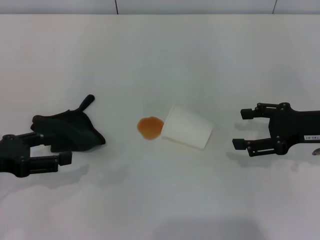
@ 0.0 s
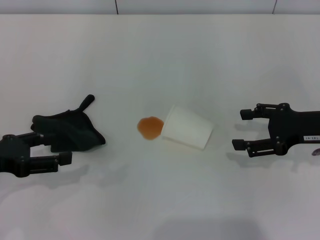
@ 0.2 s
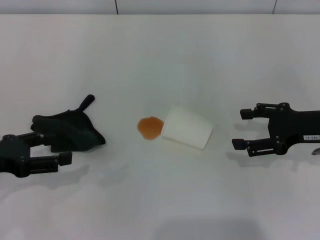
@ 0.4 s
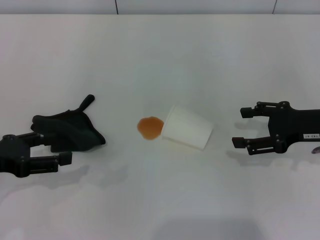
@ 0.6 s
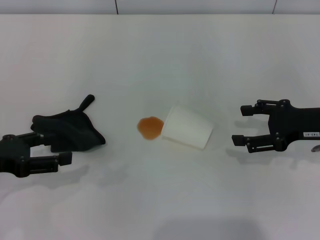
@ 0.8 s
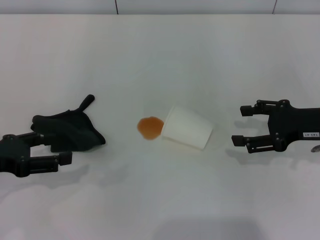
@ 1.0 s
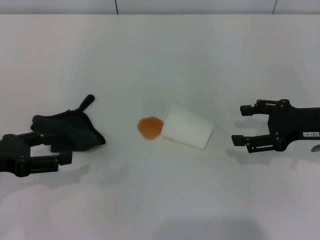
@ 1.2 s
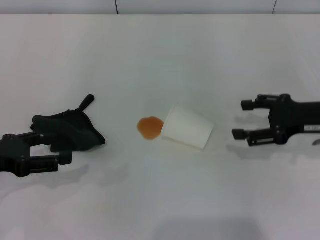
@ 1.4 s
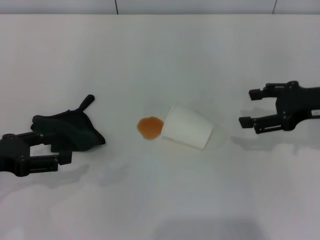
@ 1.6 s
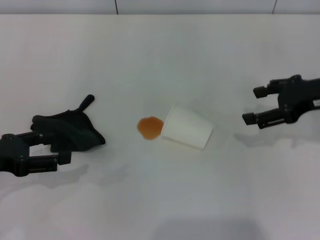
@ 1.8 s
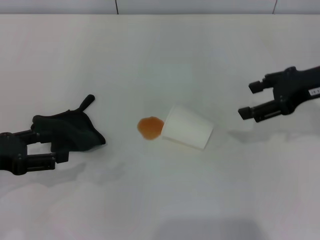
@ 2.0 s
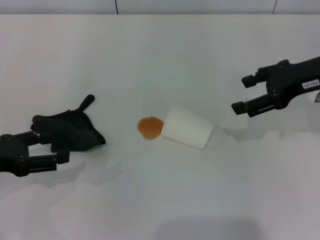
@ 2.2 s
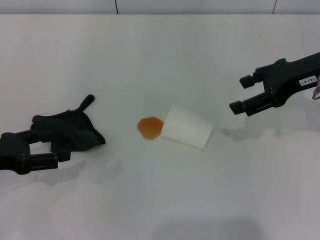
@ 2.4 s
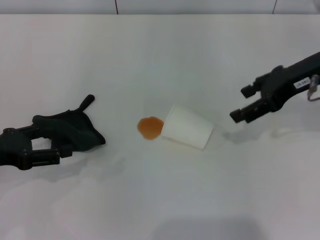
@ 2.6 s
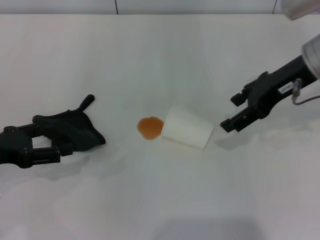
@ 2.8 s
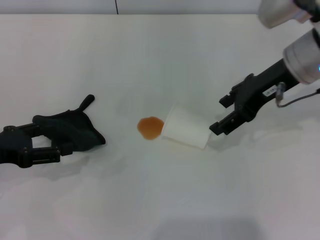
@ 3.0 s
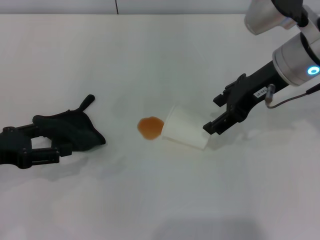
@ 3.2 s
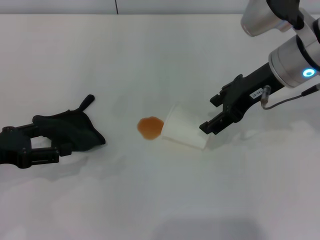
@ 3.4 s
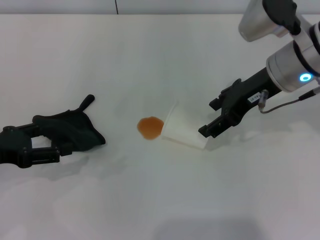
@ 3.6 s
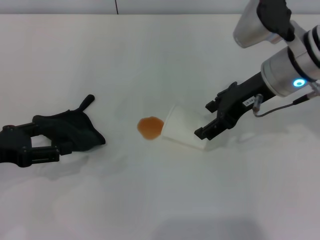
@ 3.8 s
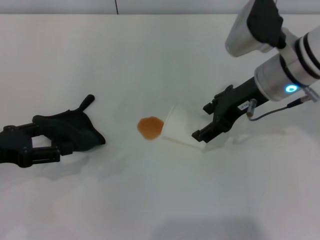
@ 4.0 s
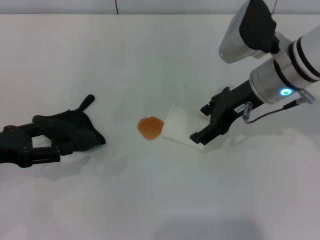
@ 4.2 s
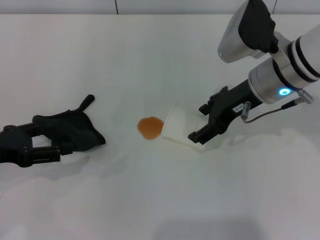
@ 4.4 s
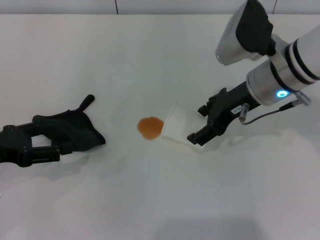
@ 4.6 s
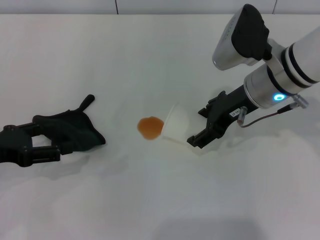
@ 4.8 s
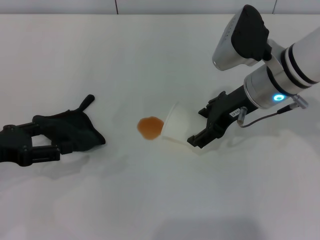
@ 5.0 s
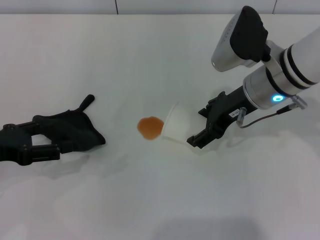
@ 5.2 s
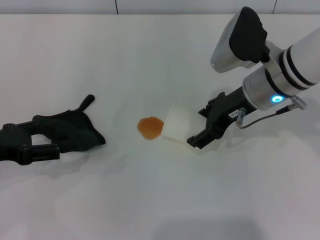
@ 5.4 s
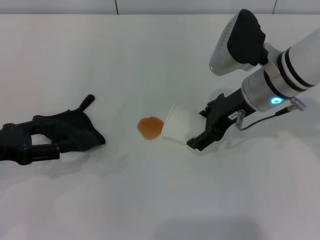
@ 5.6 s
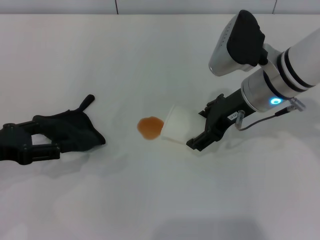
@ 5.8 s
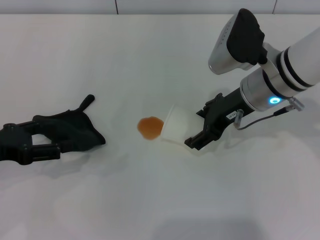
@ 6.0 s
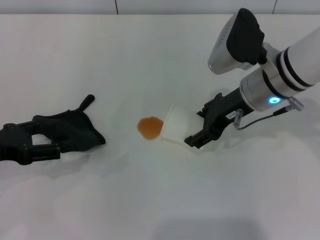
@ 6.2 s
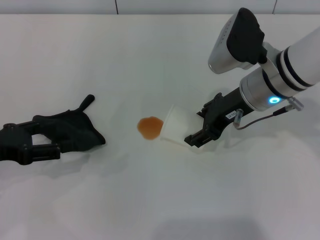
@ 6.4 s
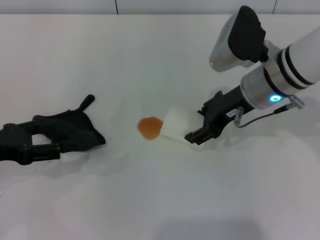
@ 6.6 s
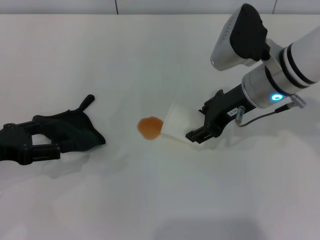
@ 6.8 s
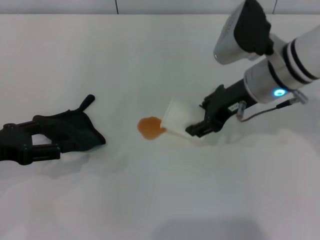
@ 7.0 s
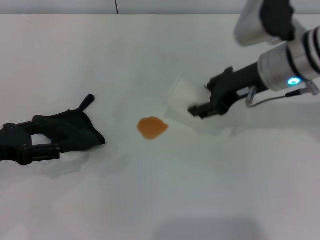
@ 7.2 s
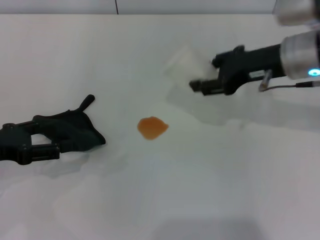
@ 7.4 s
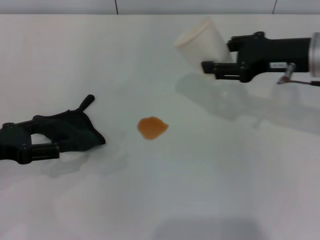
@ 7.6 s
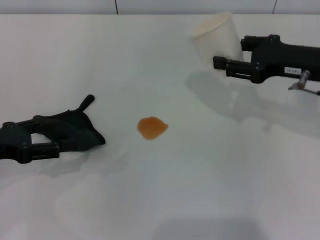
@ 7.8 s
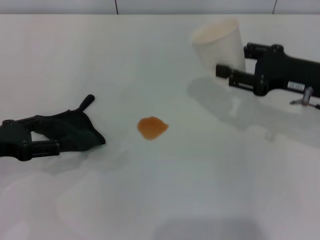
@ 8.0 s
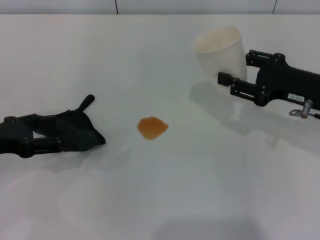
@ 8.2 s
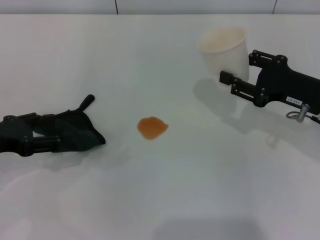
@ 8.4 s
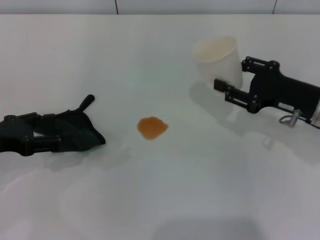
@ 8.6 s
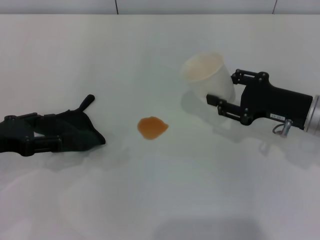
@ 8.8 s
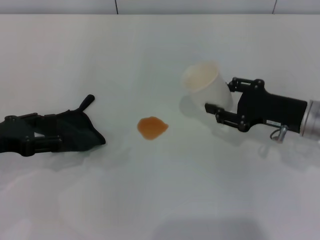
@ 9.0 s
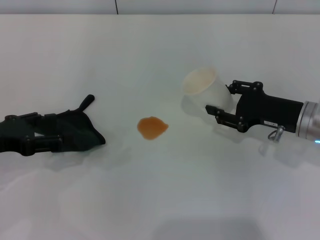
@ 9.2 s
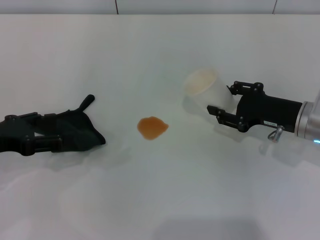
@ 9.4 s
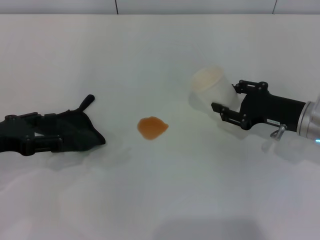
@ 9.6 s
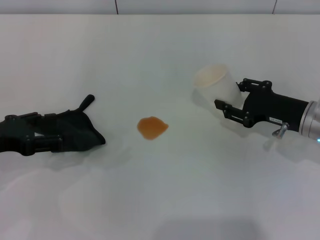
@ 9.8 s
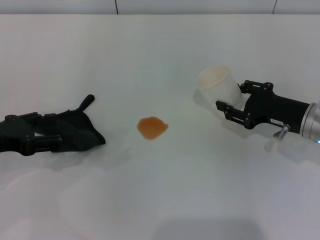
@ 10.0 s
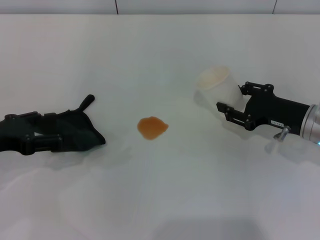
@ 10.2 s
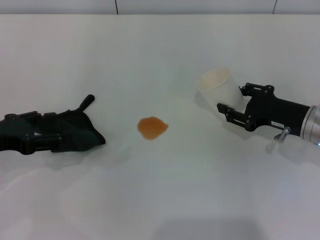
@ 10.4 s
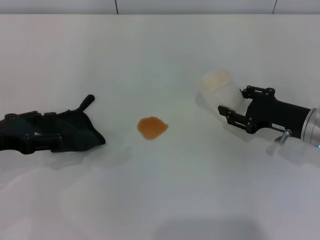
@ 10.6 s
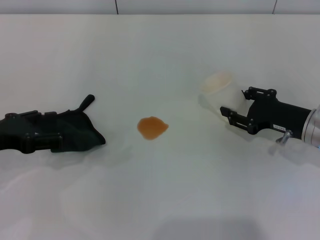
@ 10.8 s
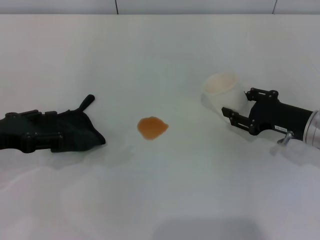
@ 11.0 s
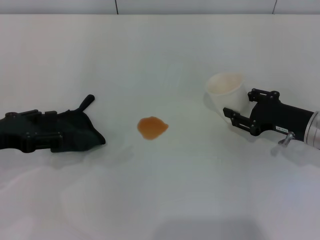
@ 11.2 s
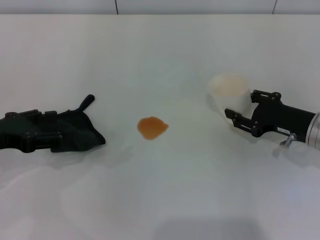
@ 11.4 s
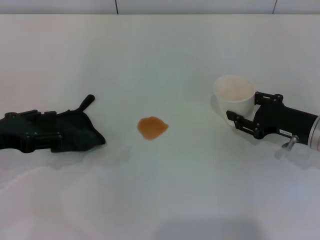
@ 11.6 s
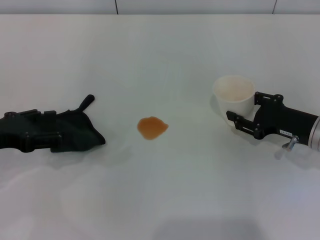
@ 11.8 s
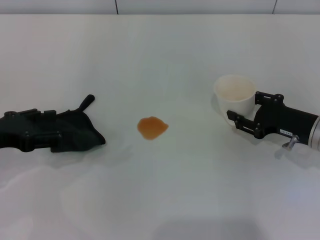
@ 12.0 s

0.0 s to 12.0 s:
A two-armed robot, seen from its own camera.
Step, 0.0 to 6.4 s: Grasp the paper cup with the right gripper.
0.0 to 1.6 s: There are only small adjustments of the grippers.
1.6 to 3.0 s: The right gripper goes approximately 10 cm to the left and upward.
3.0 to 4.4 s: The right gripper shifts by about 5 cm.
4.4 to 6.0 s: The grippers stay close to where they were, moving slightly.
6.0 to 7.6 s: The right gripper travels to the right by roughly 10 cm, and closes up.
7.6 to 9.0 s: The right gripper is displaced downward by roughly 10 cm.
9.0 to 12.0 s: The grippers move only a little.

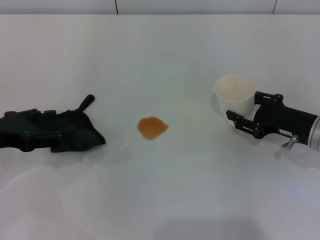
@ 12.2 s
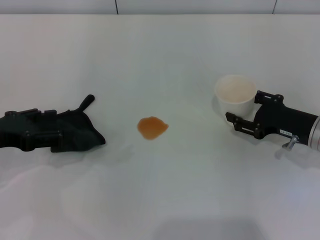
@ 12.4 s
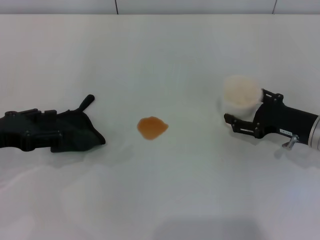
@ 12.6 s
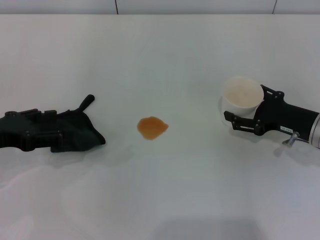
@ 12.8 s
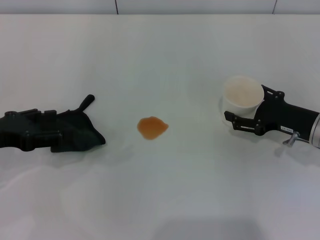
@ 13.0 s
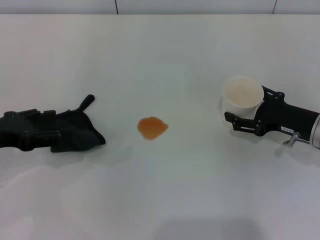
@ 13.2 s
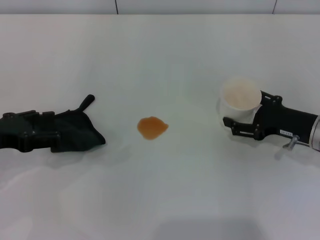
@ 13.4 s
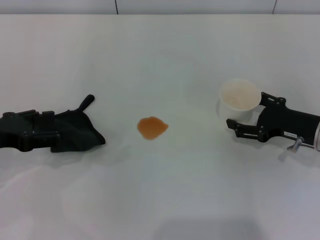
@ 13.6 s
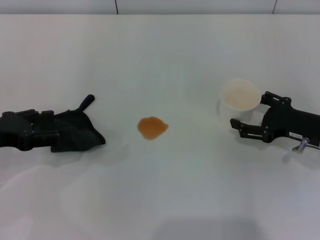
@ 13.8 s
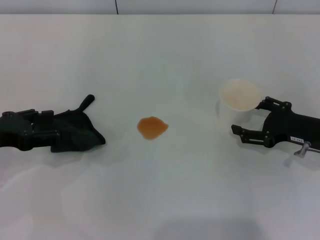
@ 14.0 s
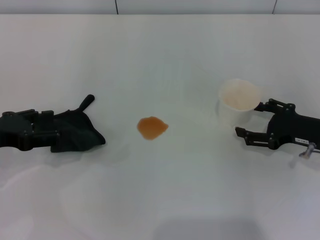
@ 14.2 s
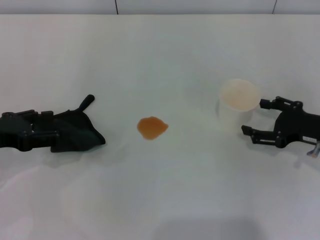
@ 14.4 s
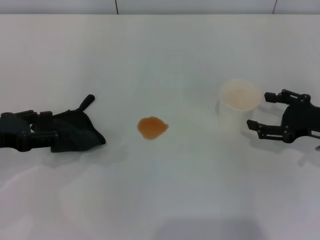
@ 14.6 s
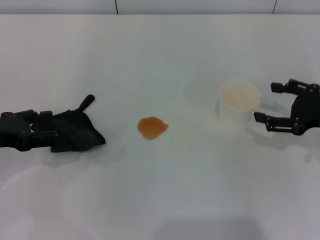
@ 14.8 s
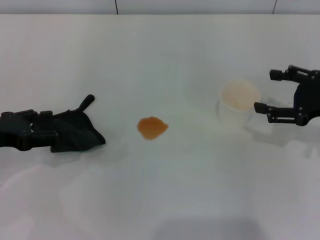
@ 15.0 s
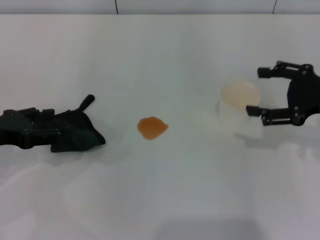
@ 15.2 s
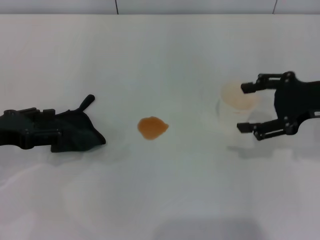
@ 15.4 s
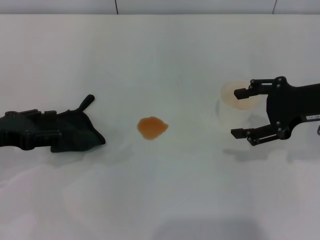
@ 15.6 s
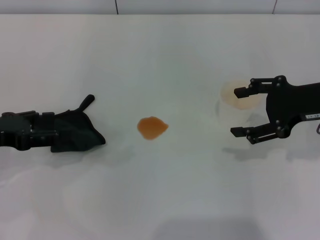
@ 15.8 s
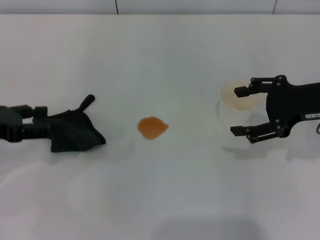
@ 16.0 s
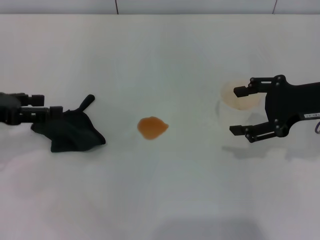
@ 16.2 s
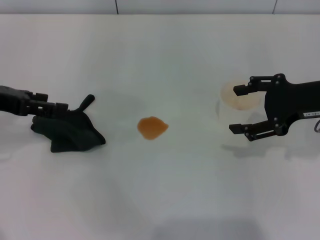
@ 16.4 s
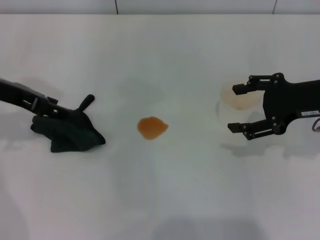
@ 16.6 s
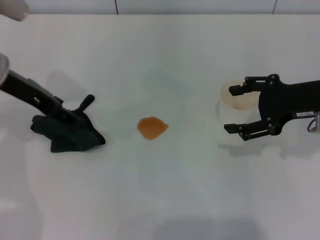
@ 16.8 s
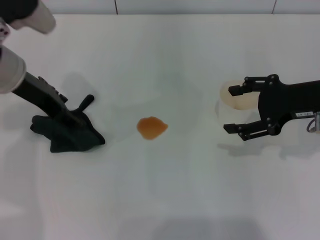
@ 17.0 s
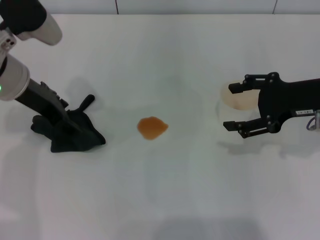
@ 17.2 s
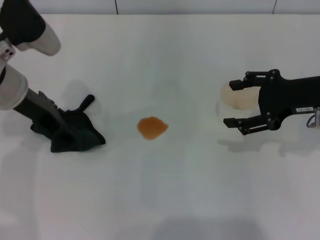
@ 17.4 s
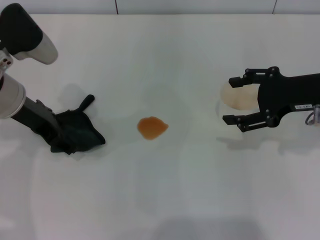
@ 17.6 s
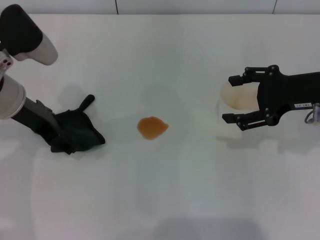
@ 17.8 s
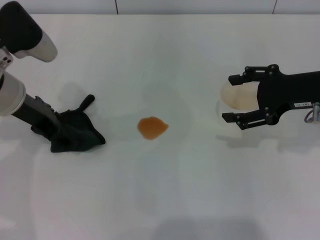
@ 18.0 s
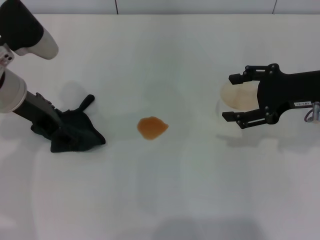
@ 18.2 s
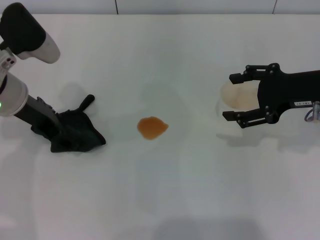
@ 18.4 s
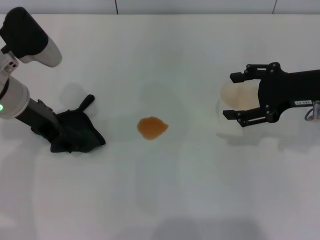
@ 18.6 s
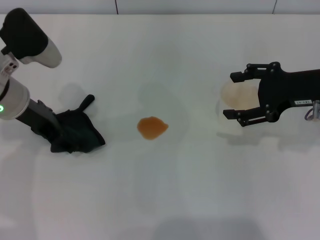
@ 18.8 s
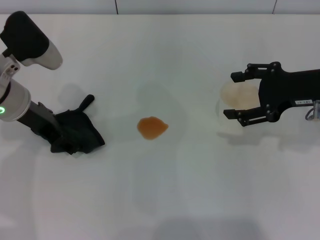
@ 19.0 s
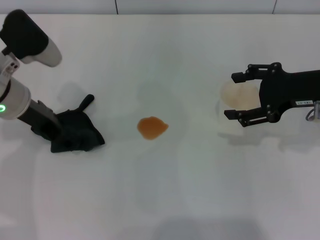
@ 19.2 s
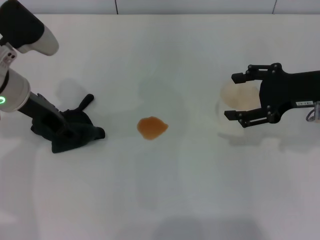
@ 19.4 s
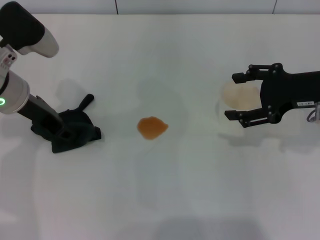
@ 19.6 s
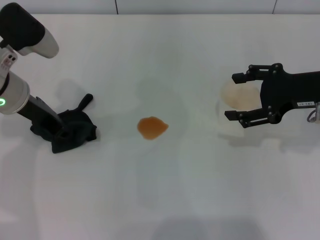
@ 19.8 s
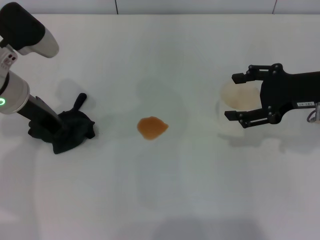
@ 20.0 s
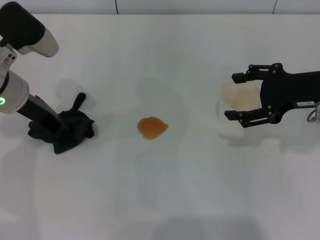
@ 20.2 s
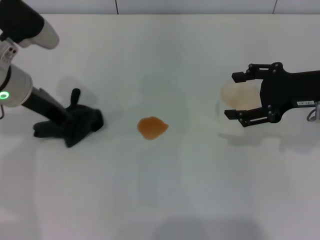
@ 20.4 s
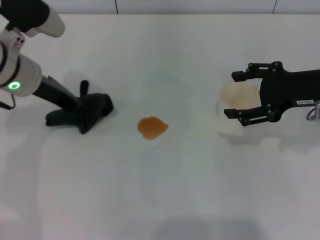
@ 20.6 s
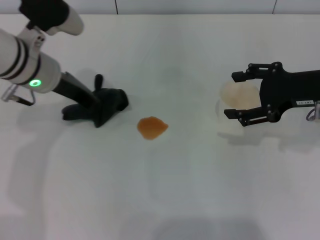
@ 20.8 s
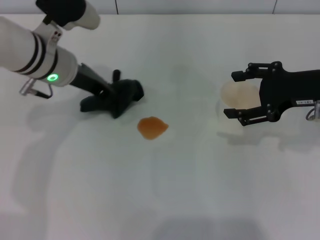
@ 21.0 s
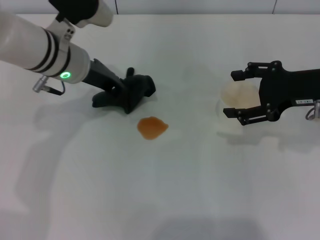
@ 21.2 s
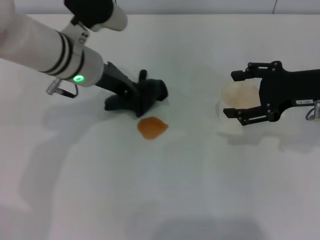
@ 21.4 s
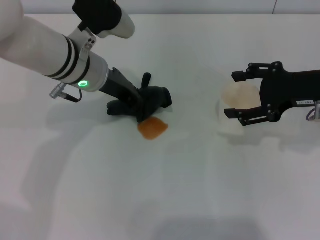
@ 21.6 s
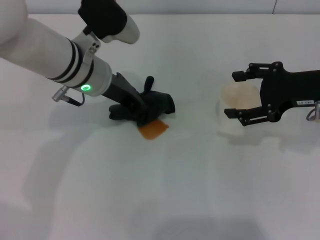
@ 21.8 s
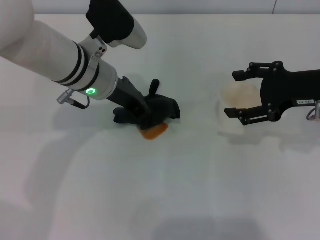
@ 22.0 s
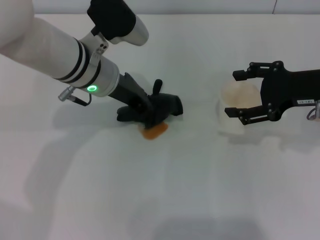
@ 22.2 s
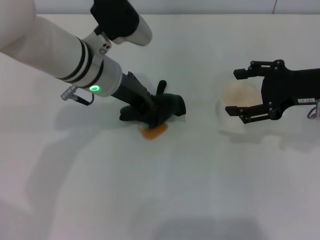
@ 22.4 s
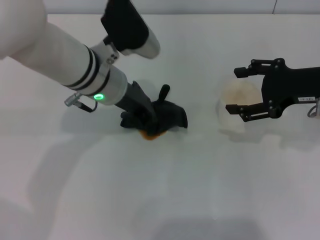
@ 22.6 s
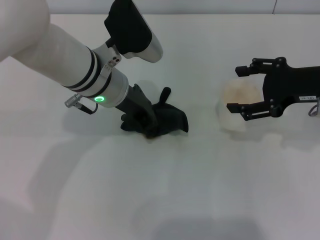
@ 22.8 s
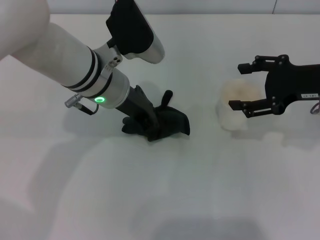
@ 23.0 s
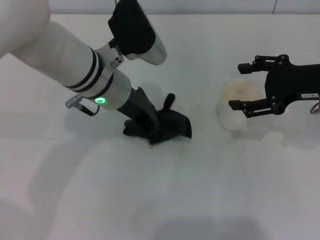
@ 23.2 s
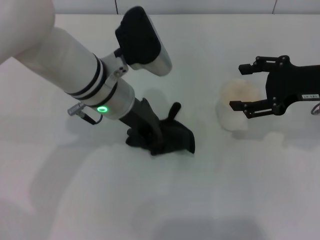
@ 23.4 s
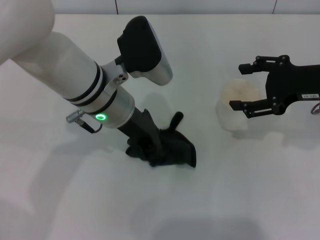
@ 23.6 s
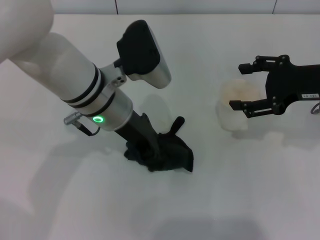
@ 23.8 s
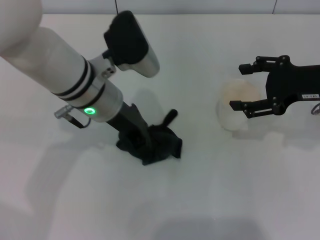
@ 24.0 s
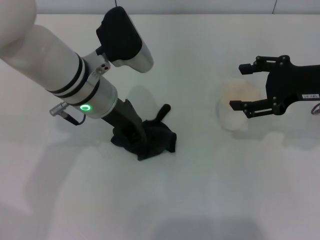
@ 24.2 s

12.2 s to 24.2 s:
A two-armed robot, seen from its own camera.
Step, 12.2 to 14.2 s: Stand the paper cup upright with the right gripper.
Step, 14.4 to 20.0 s: Grasp the rag with the left gripper.
12.2 to 13.8 s: The right gripper opens its fingers.
13.8 to 15.2 s: The right gripper goes about 10 cm upward.
15.2 to 16.6 s: The left gripper moves forward, upward and to the right, roughly 10 cm.
16.6 to 18.2 s: The left gripper changes place by roughly 5 cm.
18.2 to 19.8 s: The left gripper closes up.
19.8 to 21.2 s: The left gripper moves to the right, about 10 cm, and closes up.
21.2 to 22.6 s: The left gripper moves to the right, approximately 5 cm.
22.6 to 24.2 s: The grippers stay close to where they were, moving slightly.
